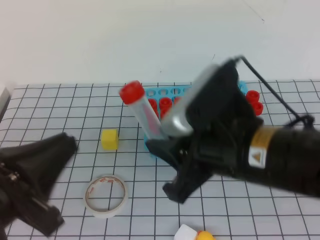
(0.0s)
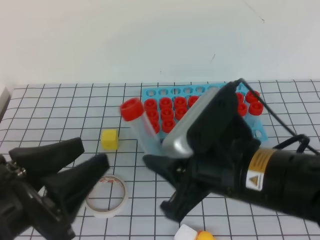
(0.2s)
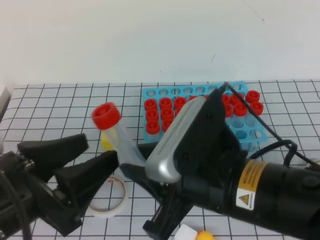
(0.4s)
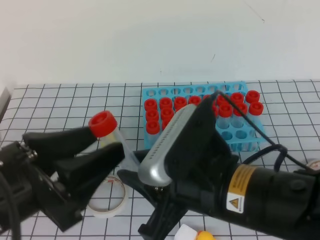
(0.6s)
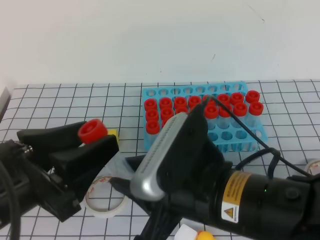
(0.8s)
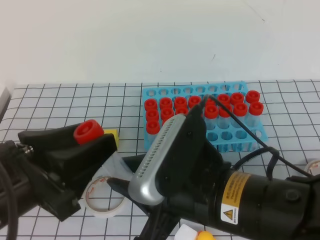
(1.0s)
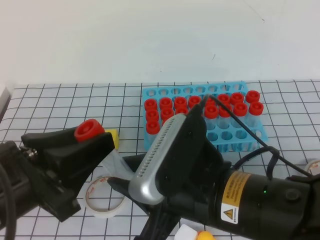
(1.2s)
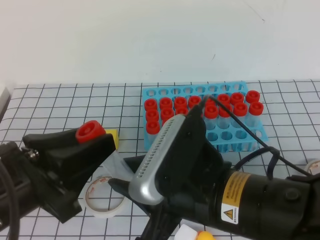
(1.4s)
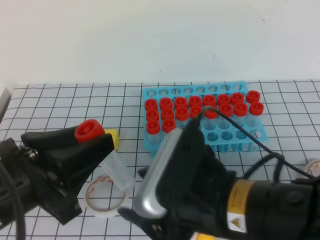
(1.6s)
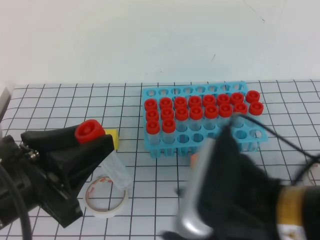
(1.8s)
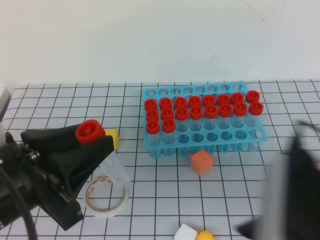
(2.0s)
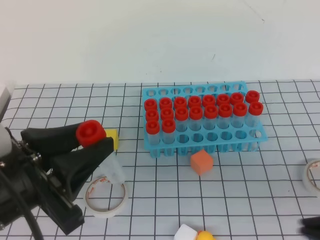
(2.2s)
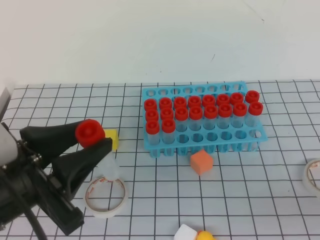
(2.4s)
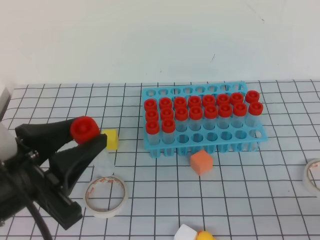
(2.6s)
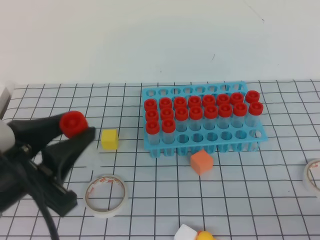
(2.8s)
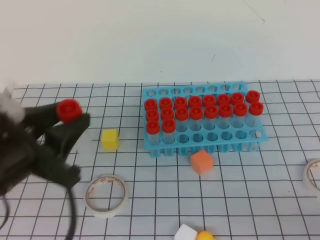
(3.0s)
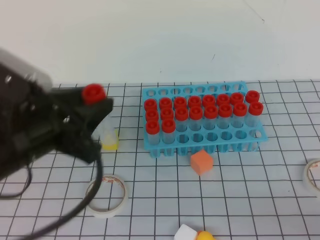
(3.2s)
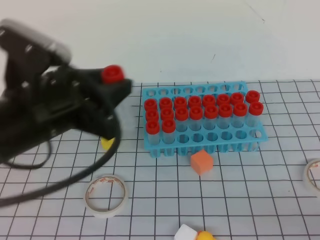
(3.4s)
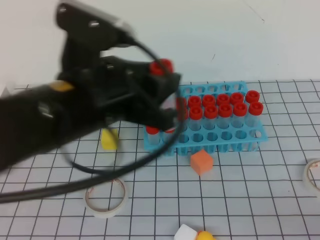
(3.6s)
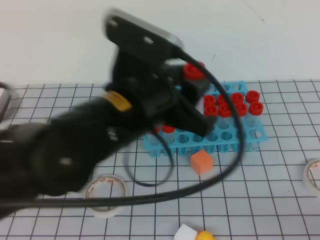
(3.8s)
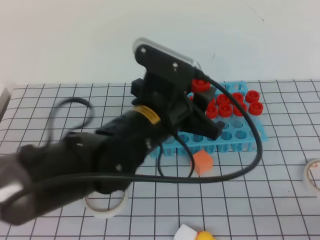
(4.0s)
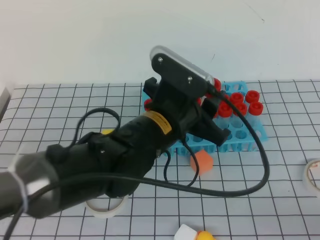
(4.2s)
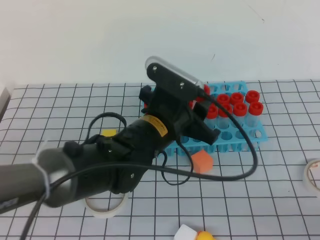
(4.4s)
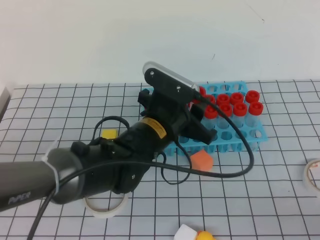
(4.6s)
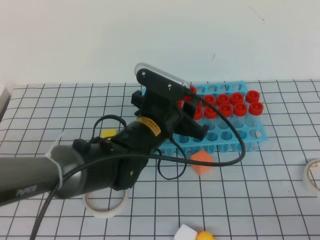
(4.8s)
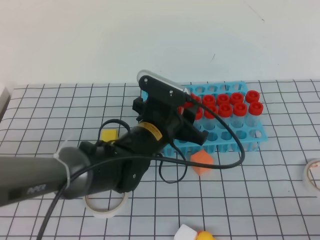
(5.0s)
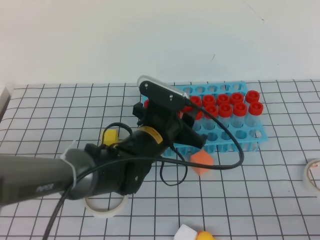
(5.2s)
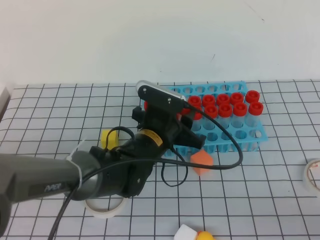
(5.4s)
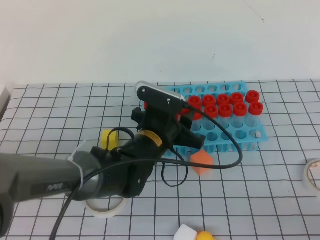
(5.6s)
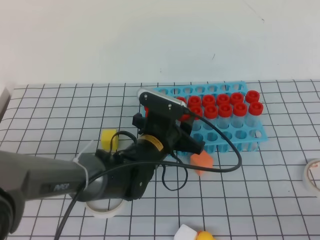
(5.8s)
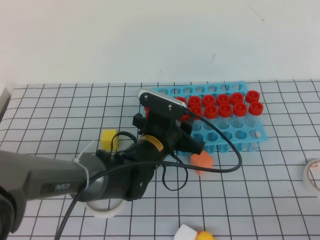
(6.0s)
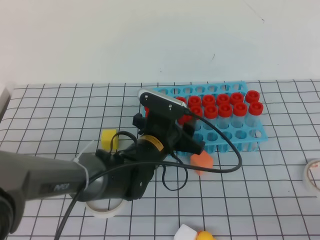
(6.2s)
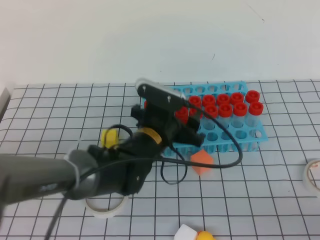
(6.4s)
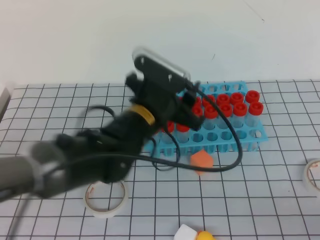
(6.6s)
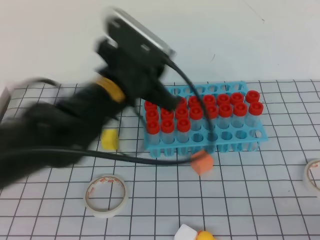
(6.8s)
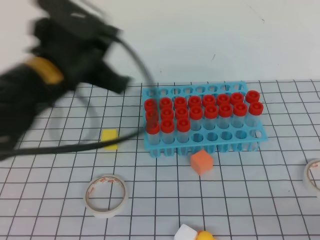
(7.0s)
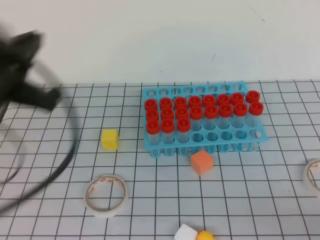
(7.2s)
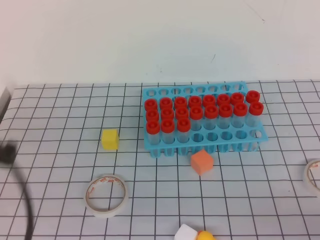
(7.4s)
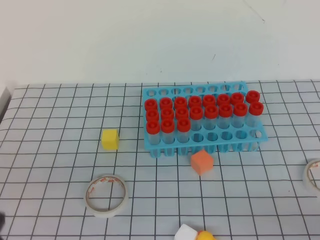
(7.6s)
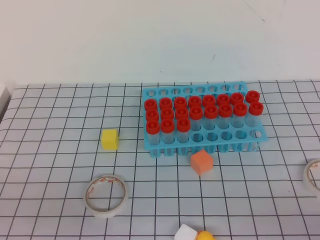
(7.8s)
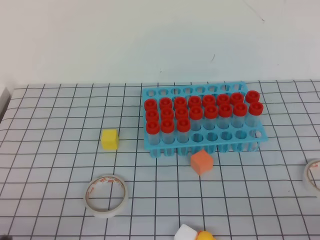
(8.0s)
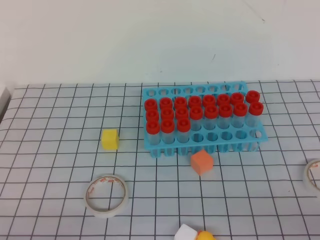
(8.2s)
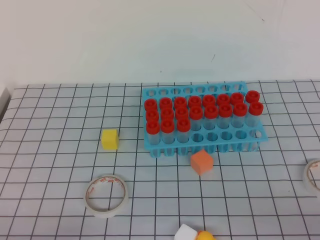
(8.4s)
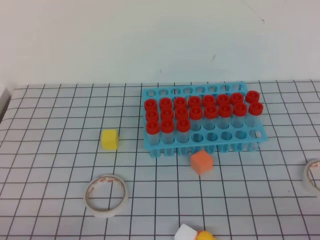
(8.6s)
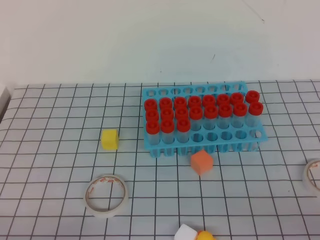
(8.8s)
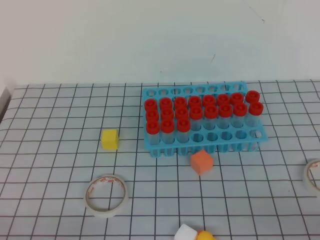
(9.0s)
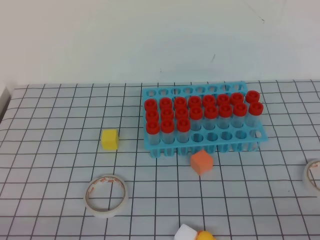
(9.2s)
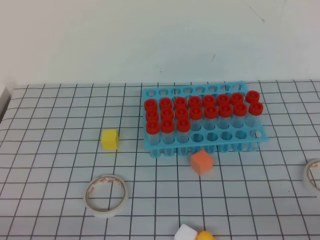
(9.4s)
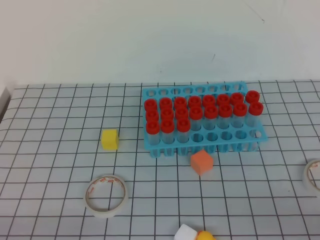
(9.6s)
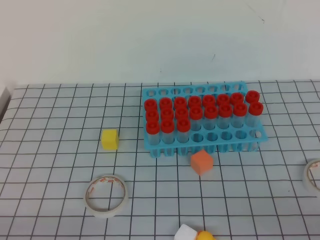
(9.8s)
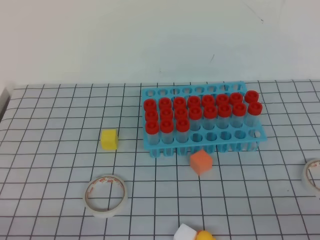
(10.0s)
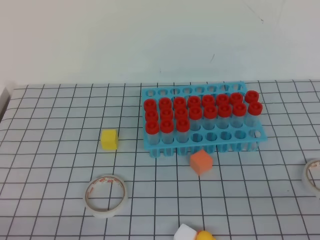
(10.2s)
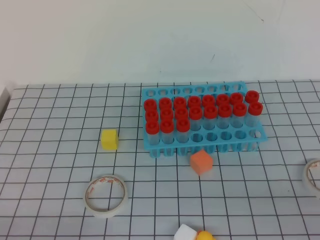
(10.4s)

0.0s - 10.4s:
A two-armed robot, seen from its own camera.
0.0s - 1.4s: The left gripper opens, then closes again, while the right gripper ends up some 5 cm from where it was.
1.4s - 3.0s: The right gripper shifts some 25 cm to the right and backward, and closes up.
3.0s - 4.4s: The left gripper travels to the right and forward by roughly 20 cm.
4.4s - 6.0s: The left gripper travels downward by some 10 cm.
6.0s - 7.4s: The left gripper travels to the left, backward and upward by roughly 35 cm, and closes its fingers.
7.4s - 9.0s: The left gripper is displaced downward and backward by roughly 20 cm.

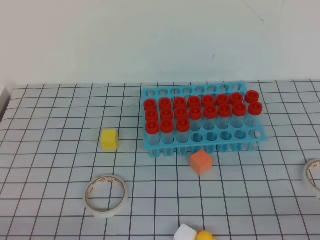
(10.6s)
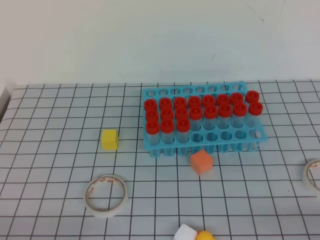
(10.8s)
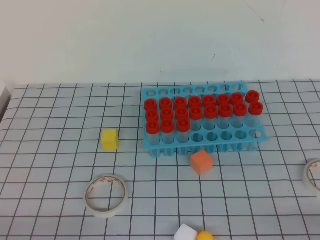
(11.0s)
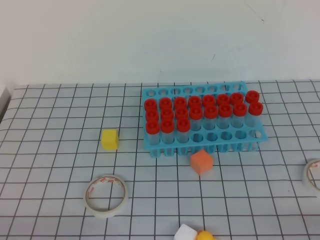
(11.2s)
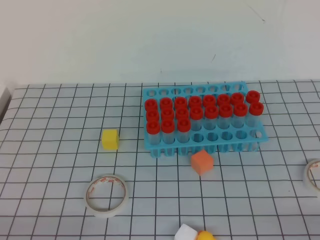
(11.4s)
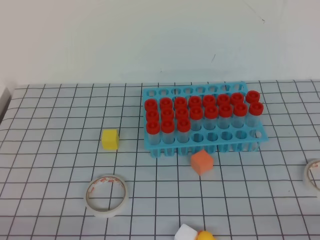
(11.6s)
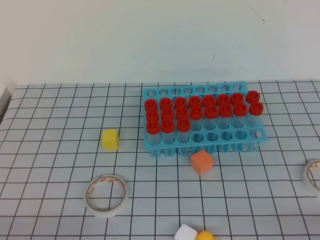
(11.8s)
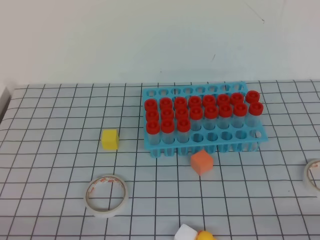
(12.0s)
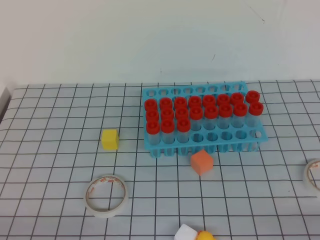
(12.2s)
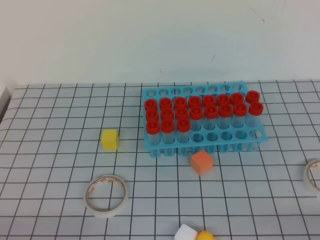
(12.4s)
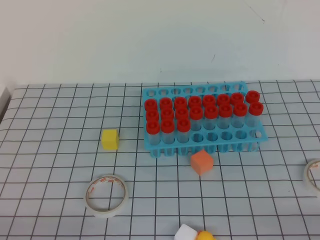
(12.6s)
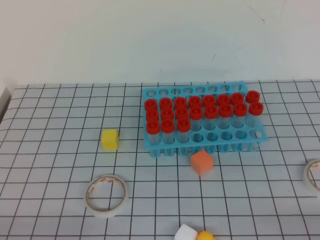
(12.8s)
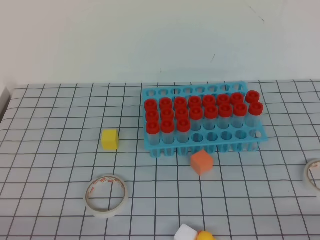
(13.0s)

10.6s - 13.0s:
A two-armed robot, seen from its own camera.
11.8s - 13.0s: Both grippers stay about where they are.
